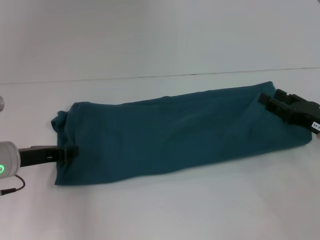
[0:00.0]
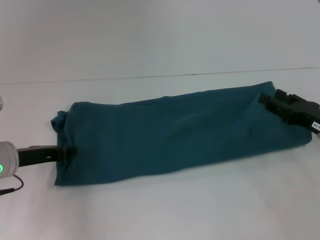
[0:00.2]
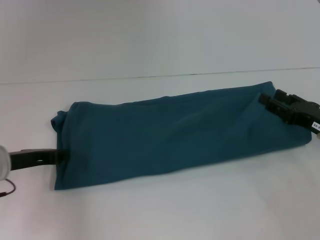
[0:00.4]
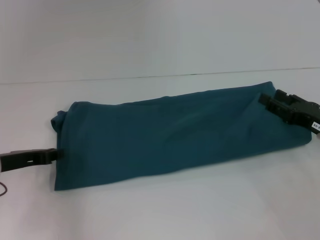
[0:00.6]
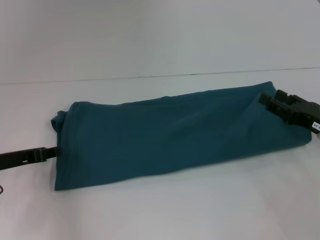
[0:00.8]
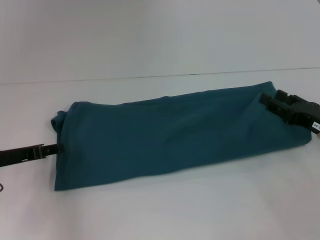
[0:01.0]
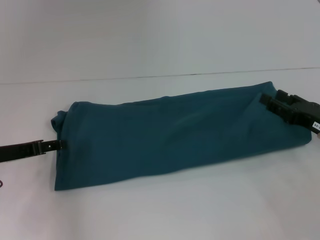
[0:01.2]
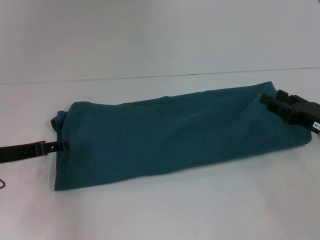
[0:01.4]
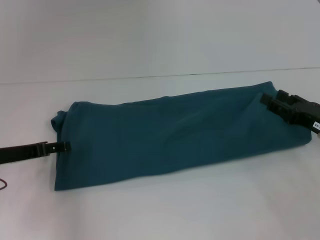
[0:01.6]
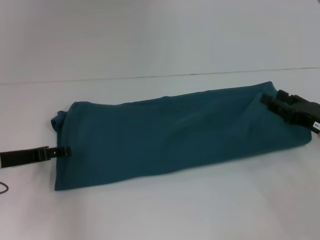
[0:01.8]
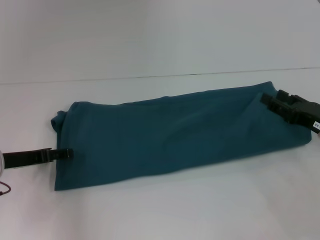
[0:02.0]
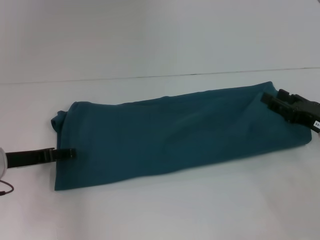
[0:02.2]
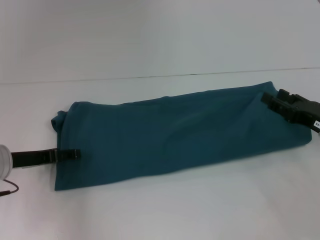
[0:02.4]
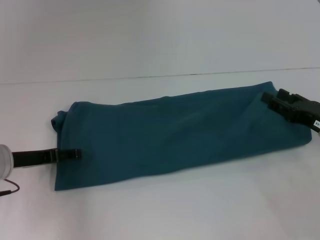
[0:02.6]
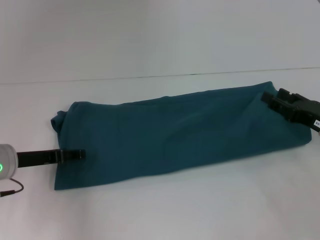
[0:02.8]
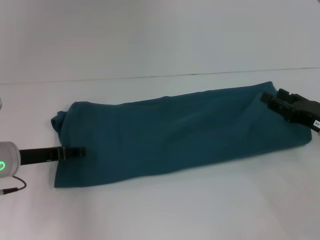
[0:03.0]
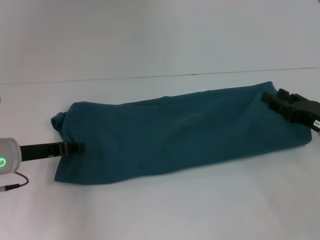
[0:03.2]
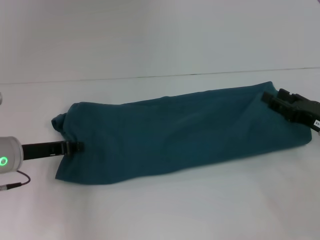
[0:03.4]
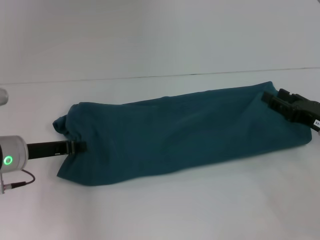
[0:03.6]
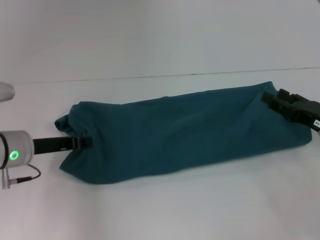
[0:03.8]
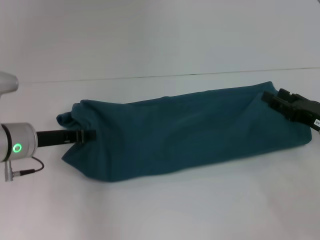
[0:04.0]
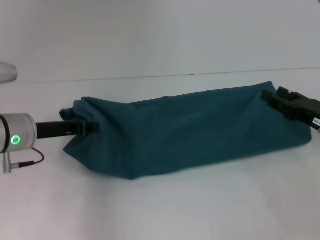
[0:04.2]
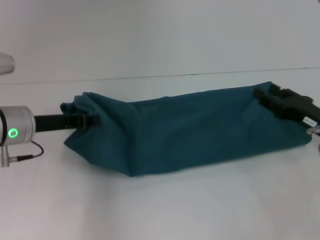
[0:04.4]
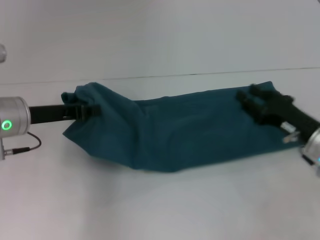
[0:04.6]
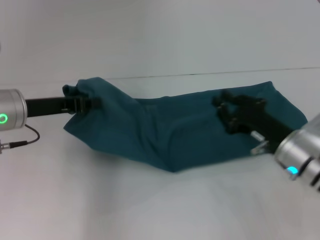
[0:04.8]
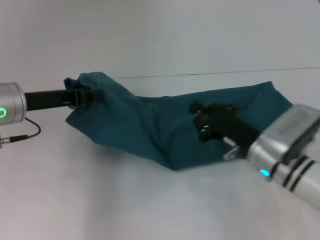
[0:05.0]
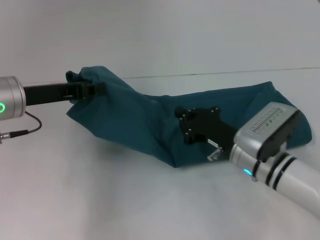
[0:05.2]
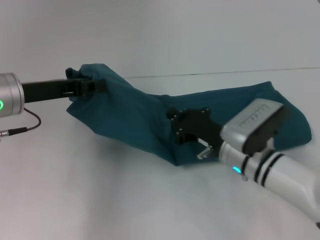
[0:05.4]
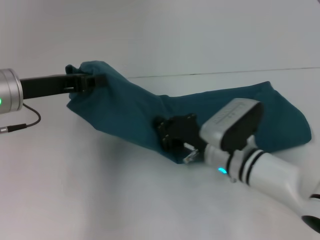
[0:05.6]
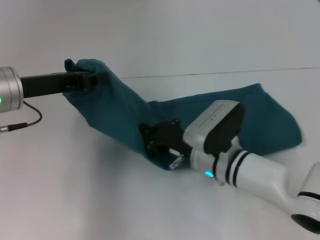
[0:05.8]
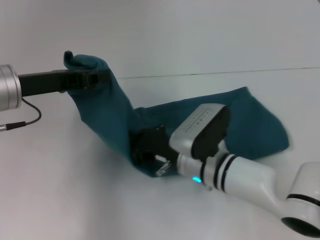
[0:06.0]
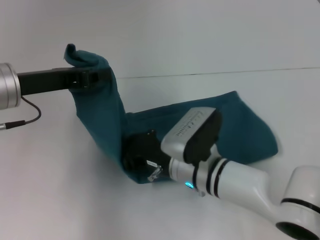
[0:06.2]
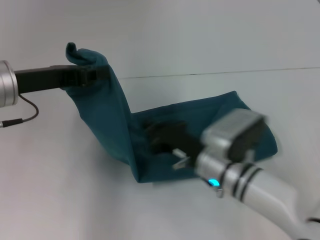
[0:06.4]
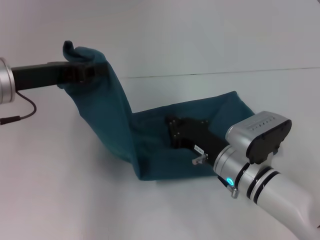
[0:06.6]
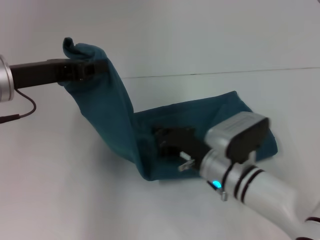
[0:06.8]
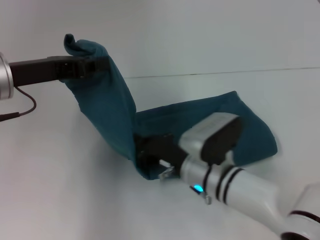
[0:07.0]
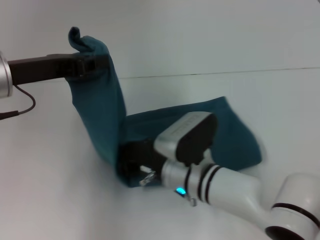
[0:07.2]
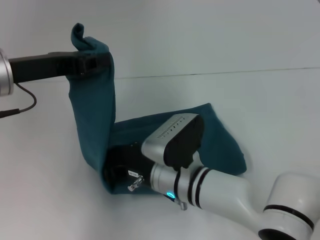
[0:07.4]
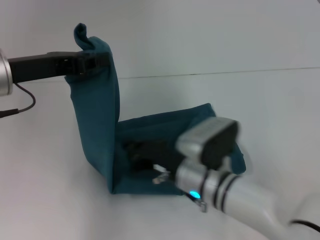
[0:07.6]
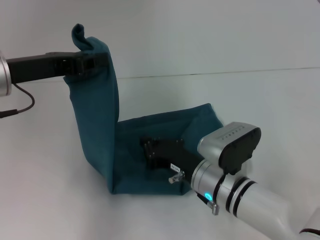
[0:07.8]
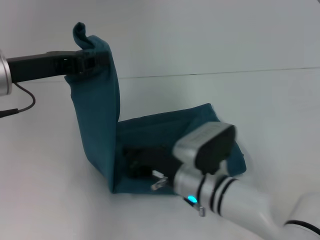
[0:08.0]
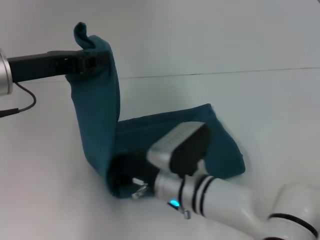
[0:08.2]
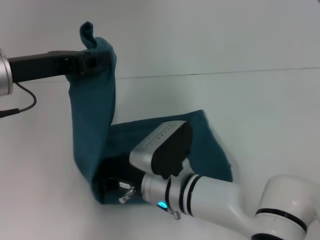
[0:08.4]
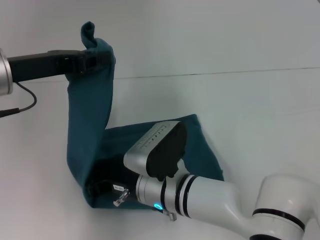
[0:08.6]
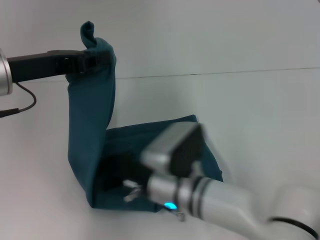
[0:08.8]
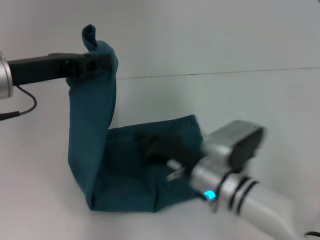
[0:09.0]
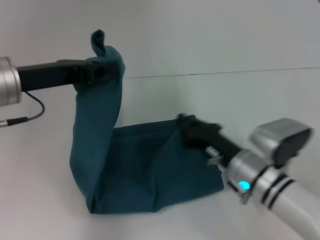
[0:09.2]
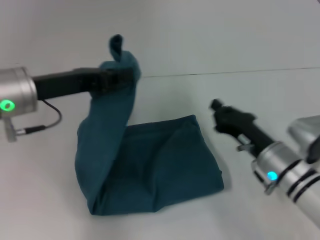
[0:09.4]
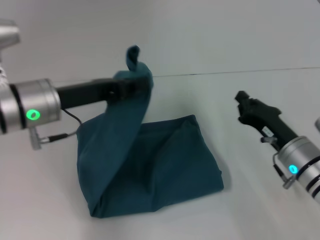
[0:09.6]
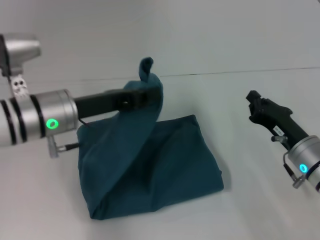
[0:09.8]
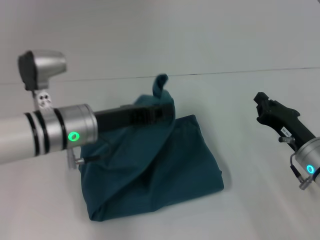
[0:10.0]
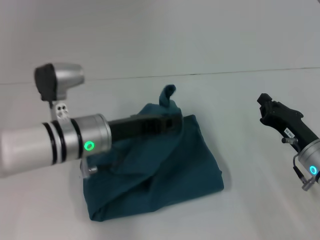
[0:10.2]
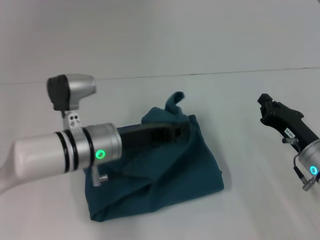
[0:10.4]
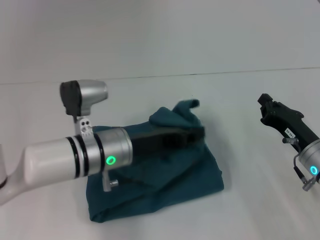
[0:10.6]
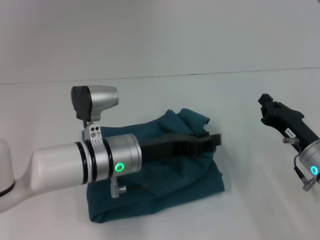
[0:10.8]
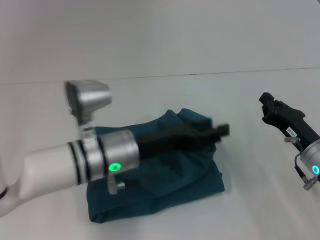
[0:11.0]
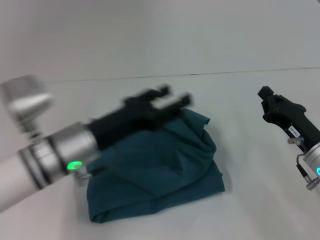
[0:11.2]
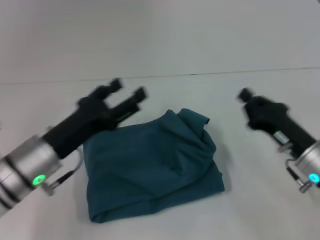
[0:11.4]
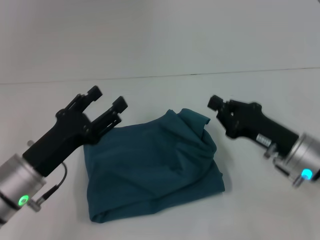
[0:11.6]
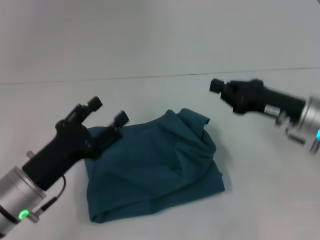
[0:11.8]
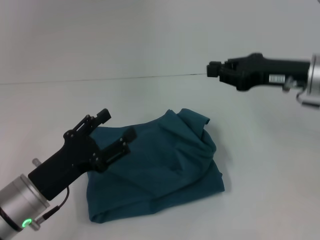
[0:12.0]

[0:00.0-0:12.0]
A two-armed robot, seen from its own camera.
Step, 0:00.0 to 0:08.8: Press the middle of the clothes with your right hand.
Step, 0:09.0 to 0:11.0: Fold the clothes to the left.
0:00.0 to 0:01.6: The left gripper opens.
0:01.6 to 0:03.0: There are only small adjustments of the grippers.
0:03.0 to 0:04.4: The left gripper moves upward, some 5 cm, and closes its fingers.
0:04.4 to 0:06.0: The left gripper shifts some 5 cm upward, while the right gripper is displaced to the left by some 20 cm, and closes its fingers.
0:06.0 to 0:07.6: The right gripper moves about 5 cm to the right and comes back.
0:07.6 to 0:09.0: The right gripper reaches roughly 5 cm to the left, then returns.
0:09.0 to 0:10.4: The right gripper shifts roughly 15 cm to the right. Meanwhile the left gripper is displaced downward and to the right by about 15 cm.
0:10.4 to 0:12.0: The left gripper is displaced to the left and backward by about 15 cm, and opens up. The right gripper shifts approximately 15 cm upward and forward.

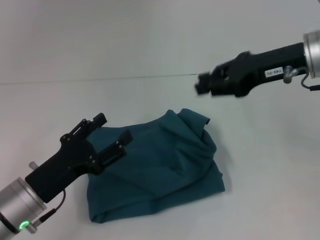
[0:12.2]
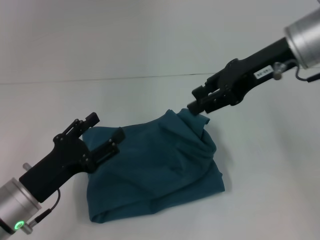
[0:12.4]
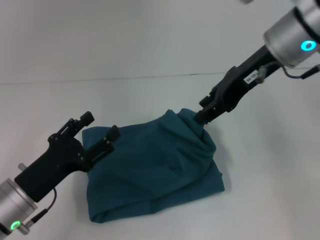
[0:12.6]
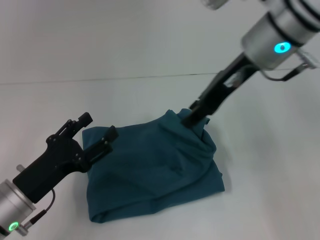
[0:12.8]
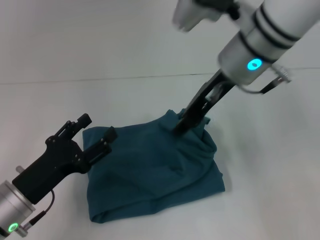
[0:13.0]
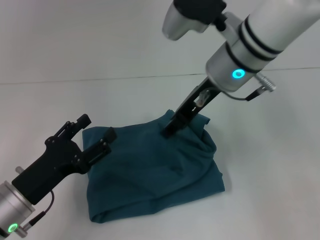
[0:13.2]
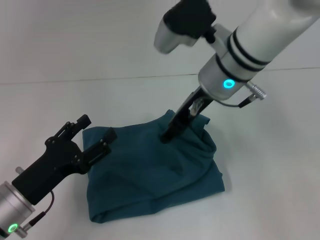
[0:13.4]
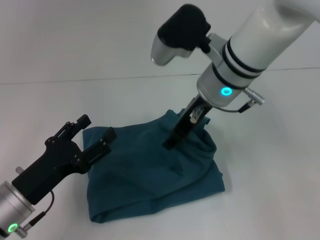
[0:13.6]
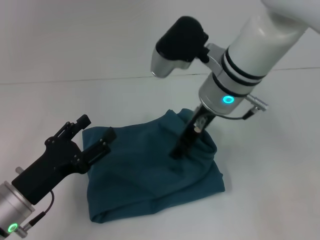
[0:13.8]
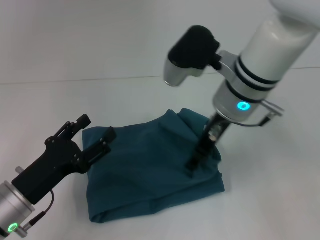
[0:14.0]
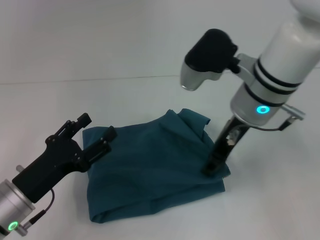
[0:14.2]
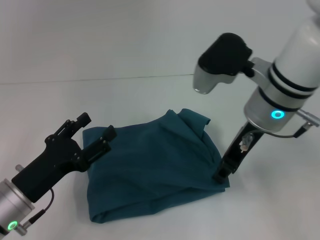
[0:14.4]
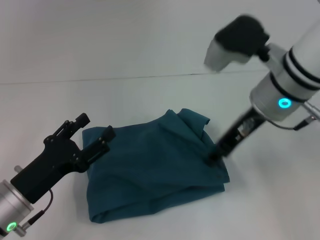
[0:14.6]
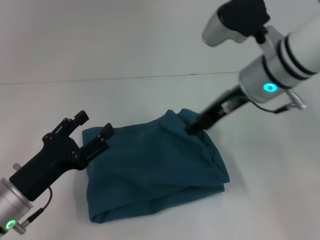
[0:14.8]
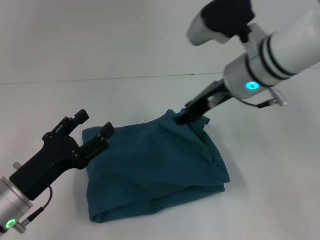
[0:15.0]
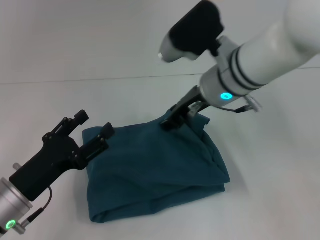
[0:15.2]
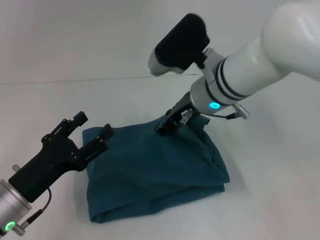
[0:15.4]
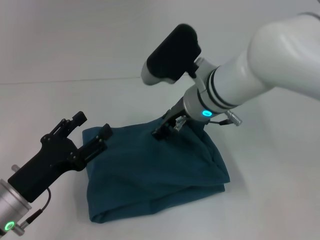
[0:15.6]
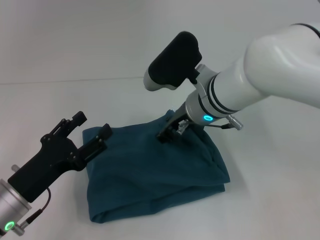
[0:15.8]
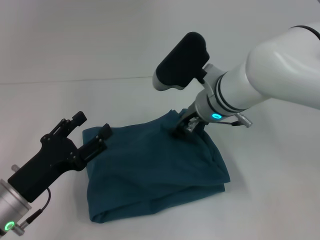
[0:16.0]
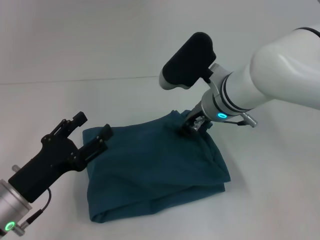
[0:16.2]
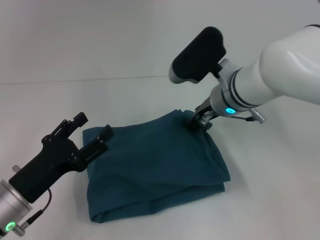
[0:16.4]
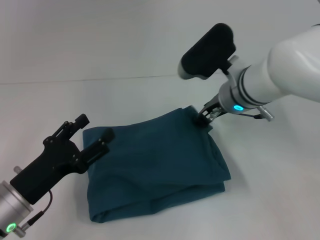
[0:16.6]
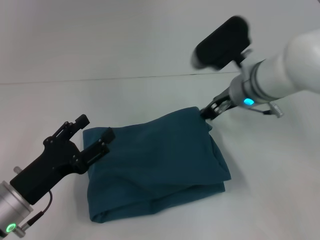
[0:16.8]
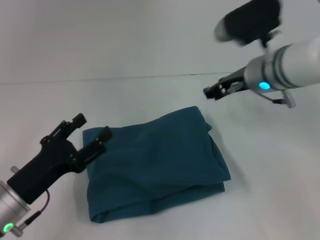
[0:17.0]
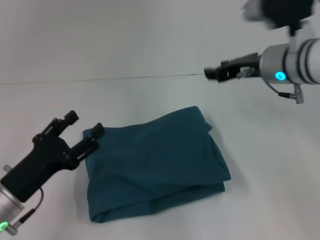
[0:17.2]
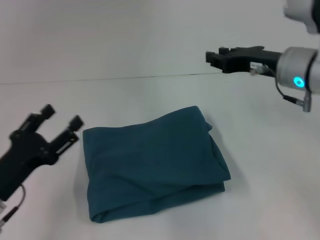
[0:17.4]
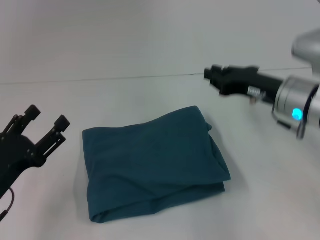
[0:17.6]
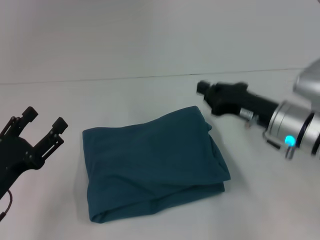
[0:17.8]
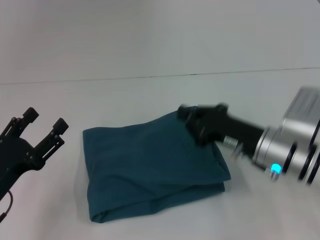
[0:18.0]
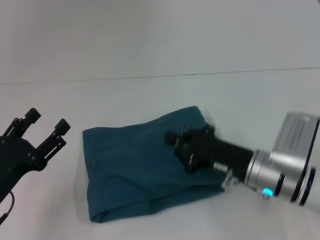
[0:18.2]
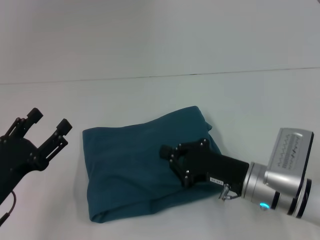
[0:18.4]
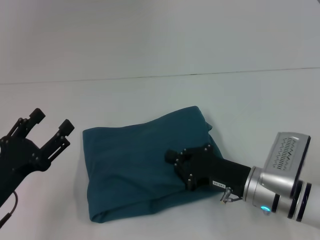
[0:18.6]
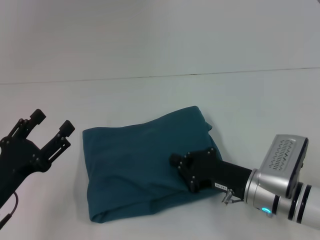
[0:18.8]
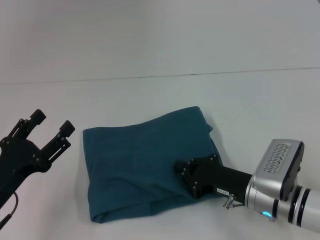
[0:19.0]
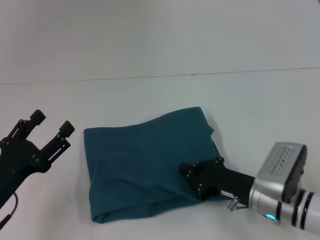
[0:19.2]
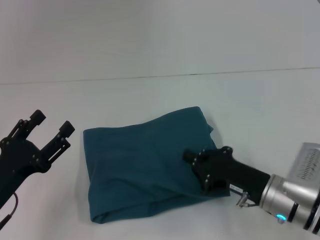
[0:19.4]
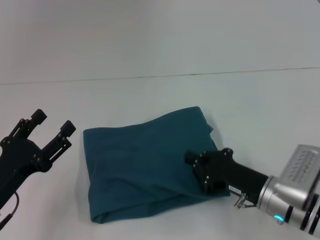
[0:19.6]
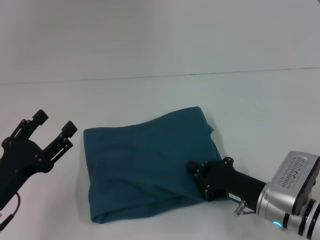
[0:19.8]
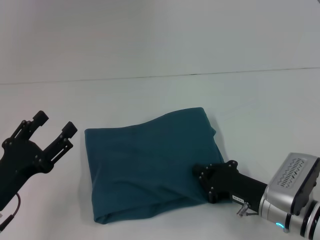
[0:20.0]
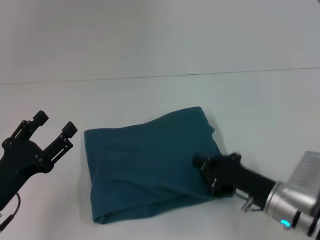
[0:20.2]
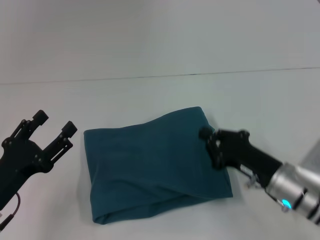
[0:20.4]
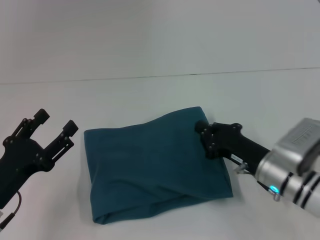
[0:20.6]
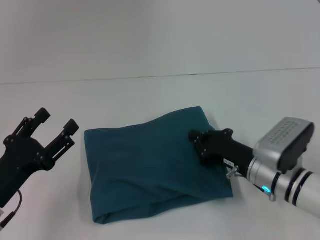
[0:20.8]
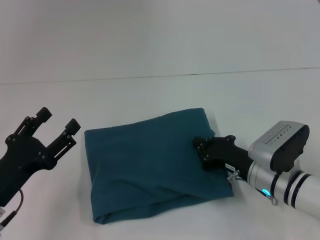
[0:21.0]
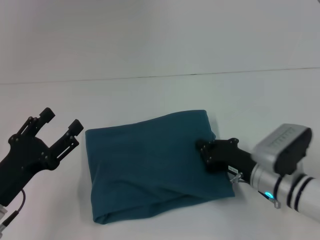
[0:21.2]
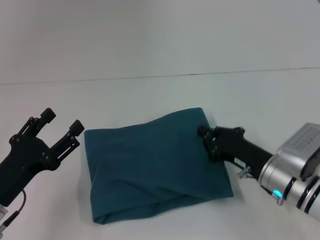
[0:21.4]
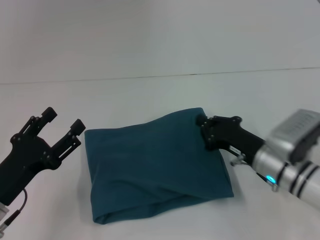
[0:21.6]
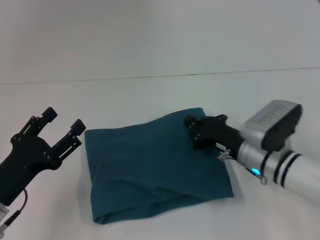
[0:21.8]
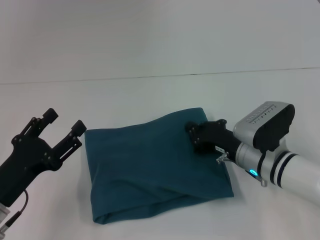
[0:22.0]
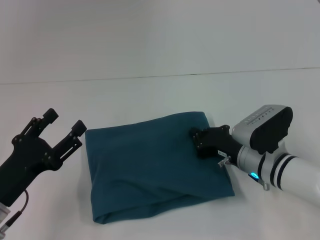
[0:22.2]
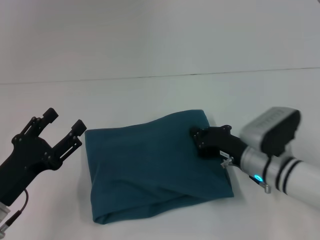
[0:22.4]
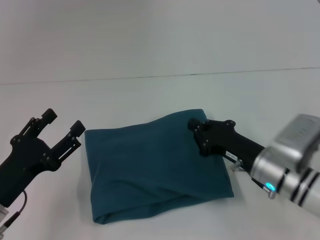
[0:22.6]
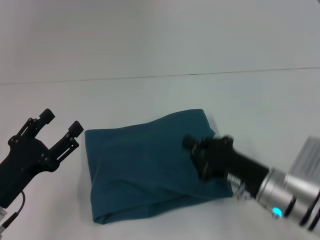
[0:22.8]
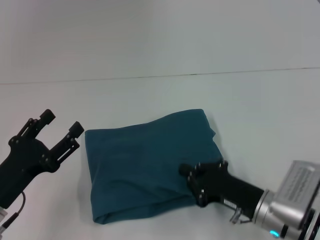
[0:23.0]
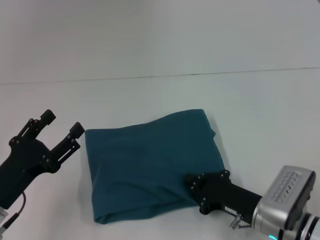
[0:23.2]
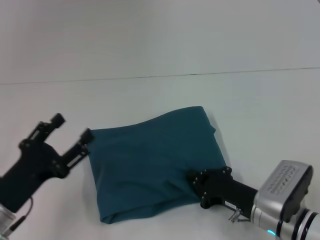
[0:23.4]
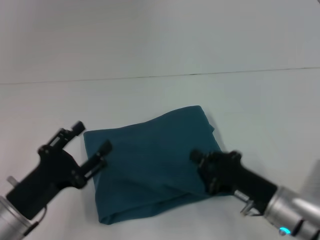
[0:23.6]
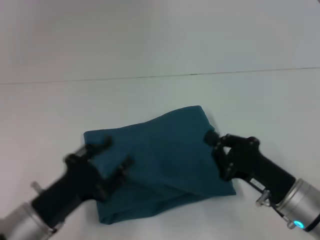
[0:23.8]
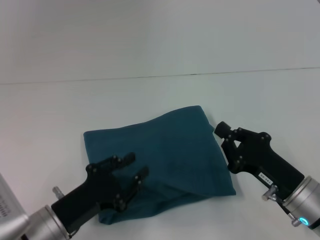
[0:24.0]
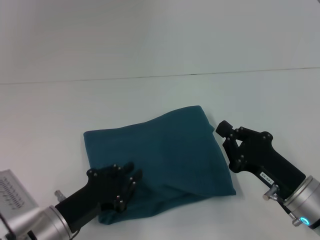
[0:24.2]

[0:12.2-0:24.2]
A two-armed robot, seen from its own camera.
0:12.2 to 0:13.8: The right gripper goes some 15 cm to the left, and opens its fingers.
0:15.2 to 0:16.6: The right gripper shifts by some 5 cm.
0:16.6 to 0:18.2: The right gripper travels backward, downward and to the right by roughly 15 cm, and closes its fingers.
0:18.2 to 0:19.8: The right gripper shifts by roughly 5 cm.
0:19.8 to 0:21.2: There are only small adjustments of the grippers.
0:21.2 to 0:22.6: The grippers make only small movements.
0:22.6 to 0:24.2: The left gripper heads to the right, covering roughly 5 cm, and closes. Meanwhile the right gripper travels backward by approximately 5 cm.
